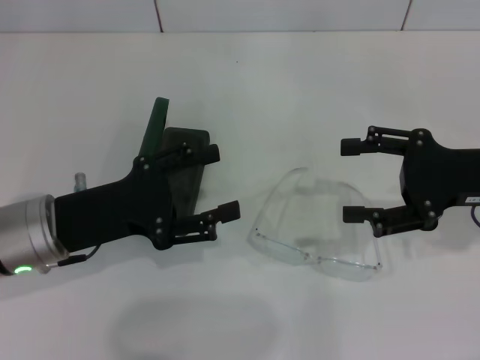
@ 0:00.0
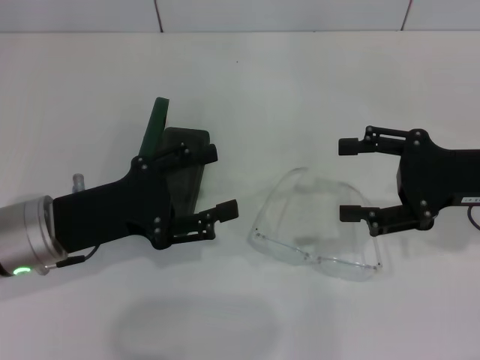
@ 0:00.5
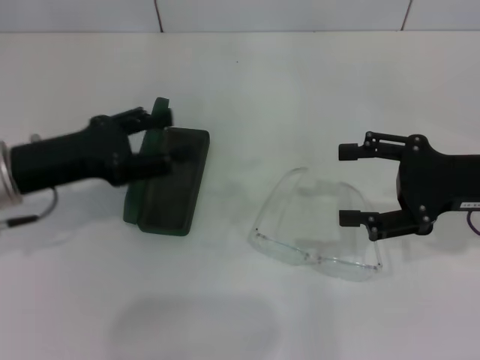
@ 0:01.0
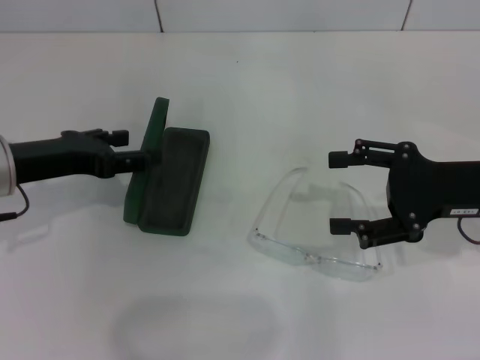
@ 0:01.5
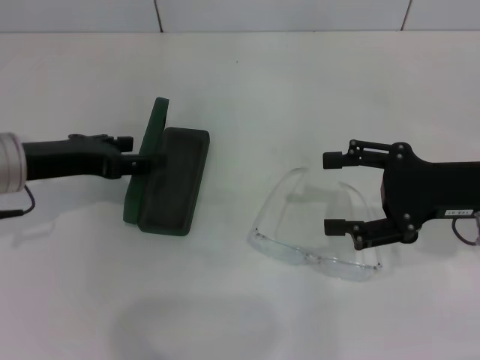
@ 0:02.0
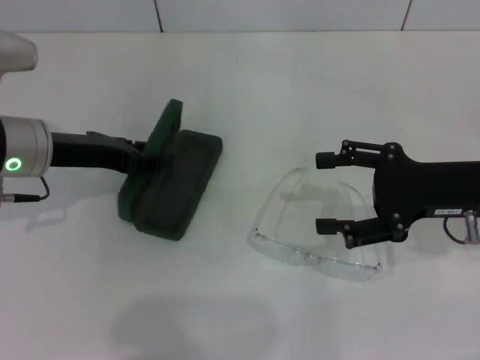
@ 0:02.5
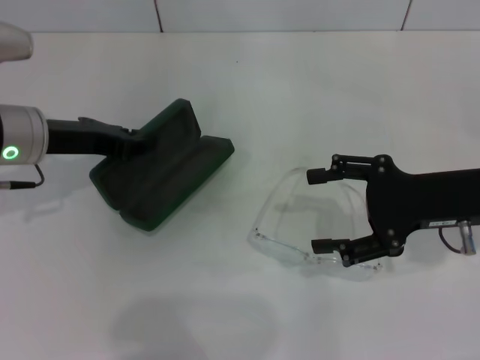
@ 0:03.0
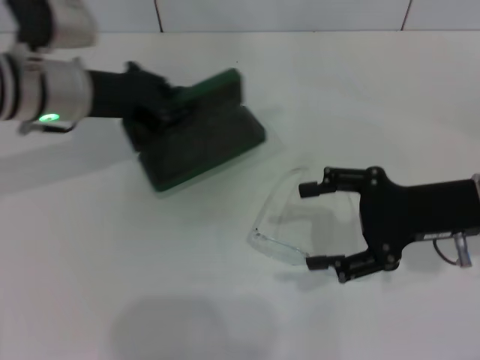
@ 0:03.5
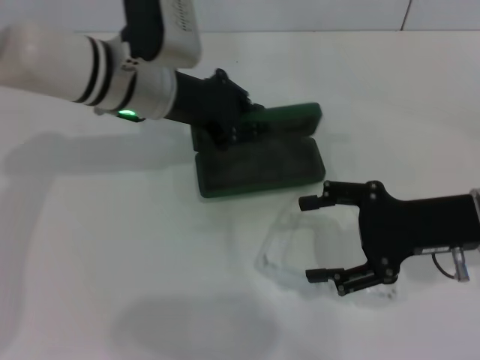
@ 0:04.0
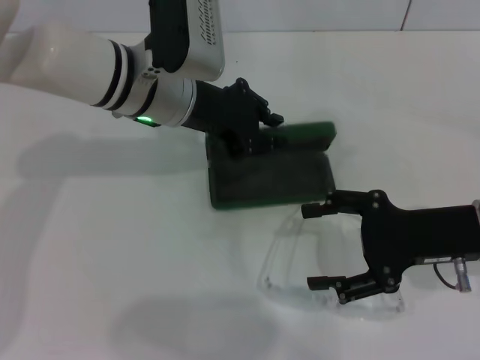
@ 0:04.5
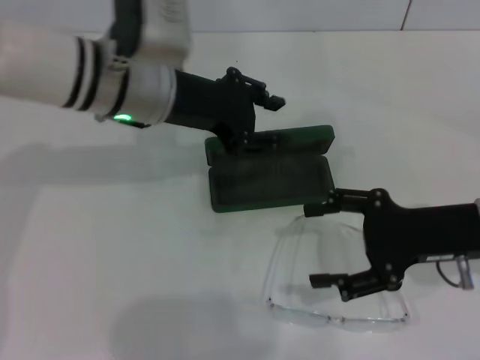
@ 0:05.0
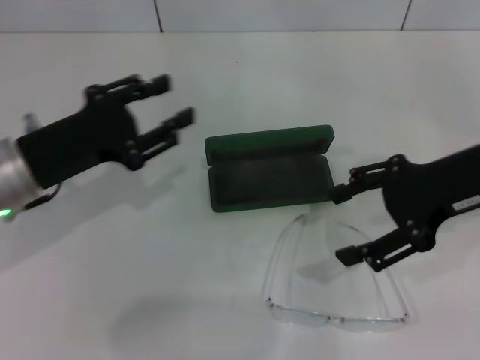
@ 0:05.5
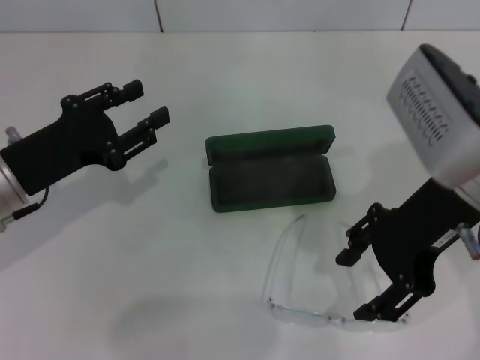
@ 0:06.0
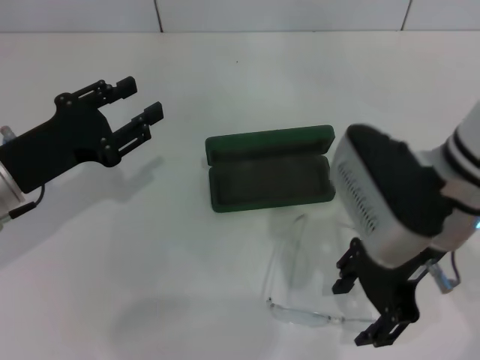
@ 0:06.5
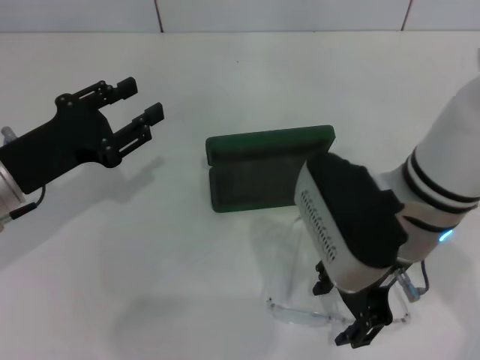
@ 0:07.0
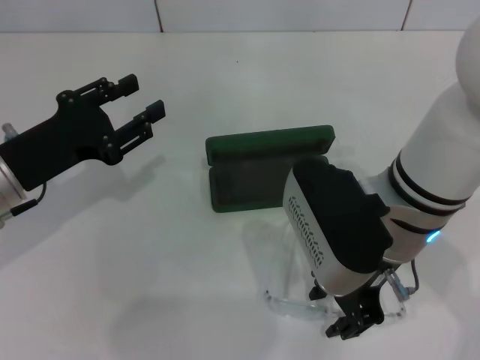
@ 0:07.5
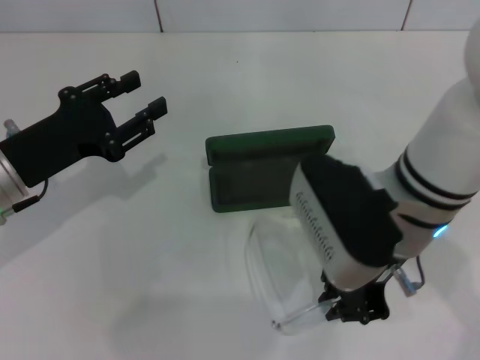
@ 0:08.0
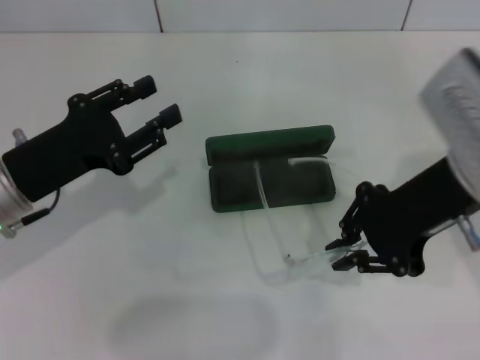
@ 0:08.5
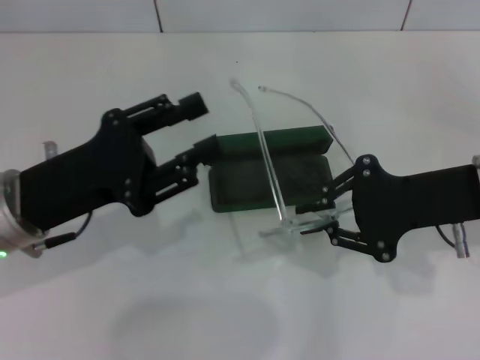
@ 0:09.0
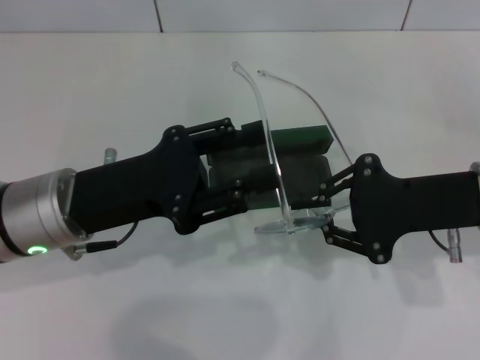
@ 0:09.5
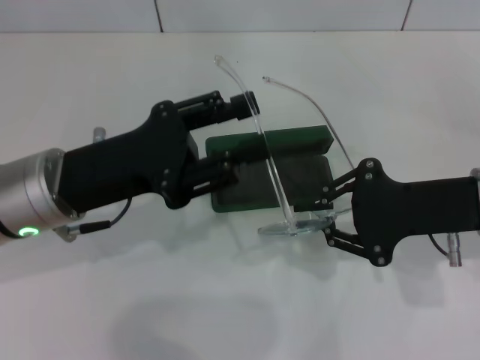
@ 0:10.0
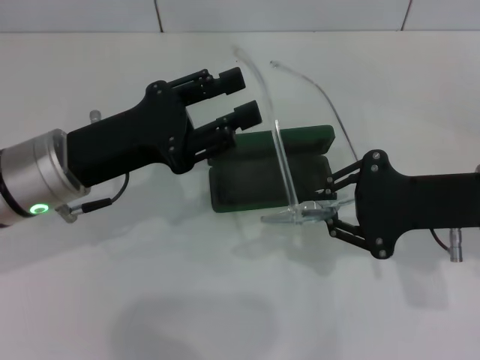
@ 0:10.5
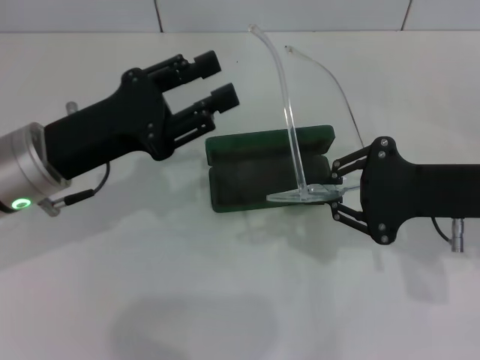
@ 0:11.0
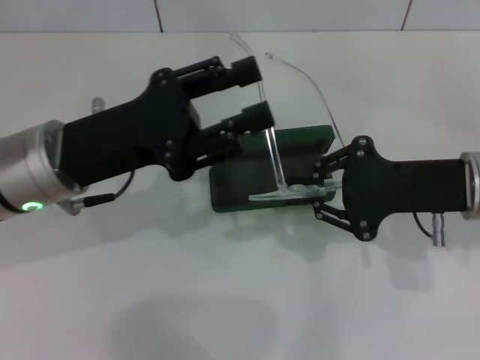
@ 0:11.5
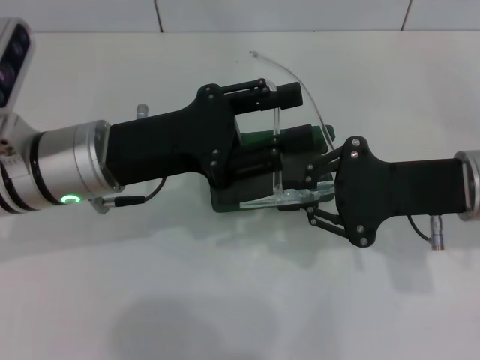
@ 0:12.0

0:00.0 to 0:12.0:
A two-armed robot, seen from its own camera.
Step, 0:00.0 to 0:02.0: Grab the glasses case with your left hand.
Step, 0:02.5 to 0:04.5: Place the glasses case in the center of the table with your left hand.
Step, 0:05.0 to 0:07.5: Grab the eyeglass frame with your right hand.
0:00.0 to 0:02.0: The left gripper shifts approximately 5 cm forward.
0:02.0 to 0:04.0: The left gripper shifts approximately 15 cm to the right and forward, and closes its fingers.
0:04.0 to 0:06.0: The right gripper moves upward and to the left, some 10 cm. The left gripper heads to the left and backward, covering roughly 20 cm, and opens up.
0:06.0 to 0:08.0: The right gripper is displaced to the left by approximately 5 cm, and closes.
0:08.0 to 0:10.0: The right gripper shifts approximately 10 cm to the right. Meanwhile the left gripper travels to the right by approximately 5 cm.

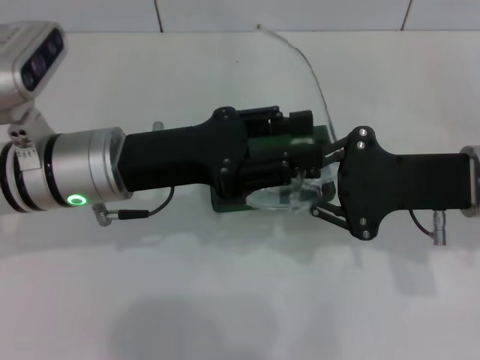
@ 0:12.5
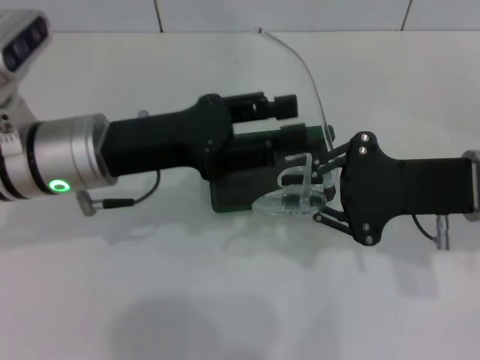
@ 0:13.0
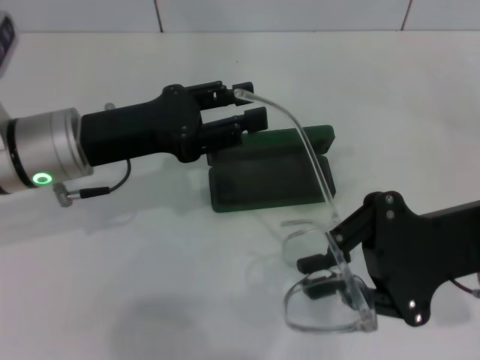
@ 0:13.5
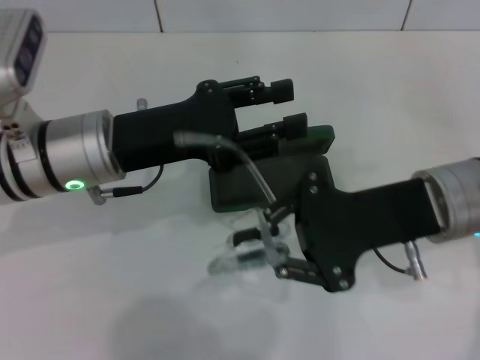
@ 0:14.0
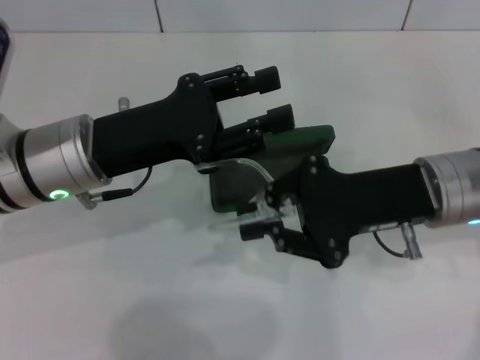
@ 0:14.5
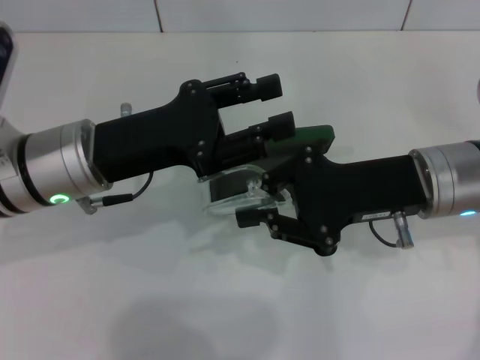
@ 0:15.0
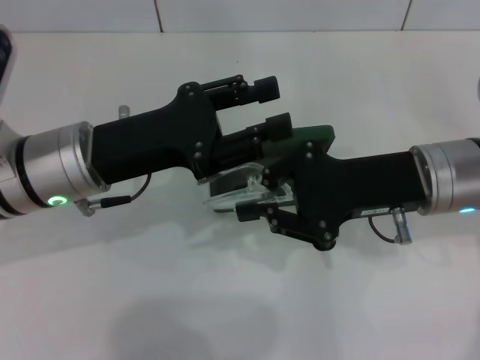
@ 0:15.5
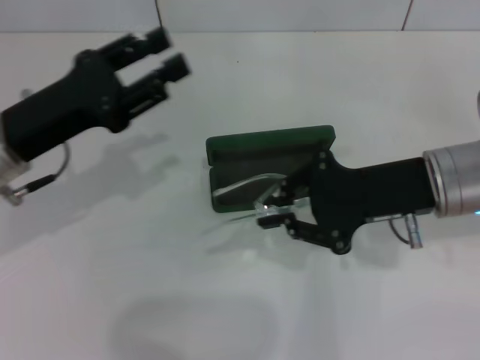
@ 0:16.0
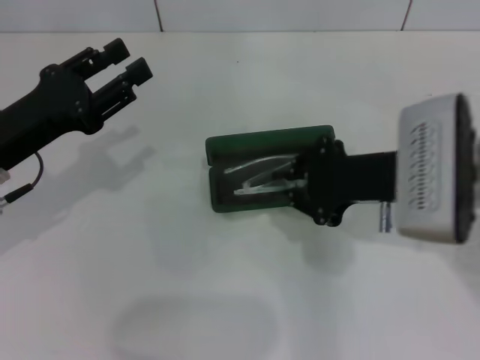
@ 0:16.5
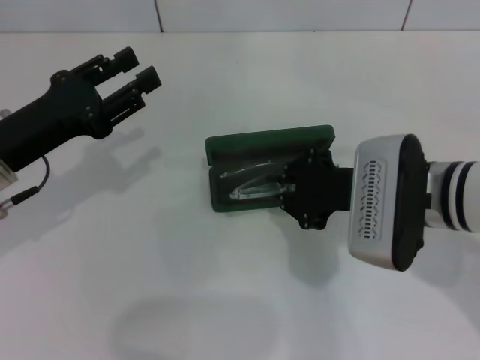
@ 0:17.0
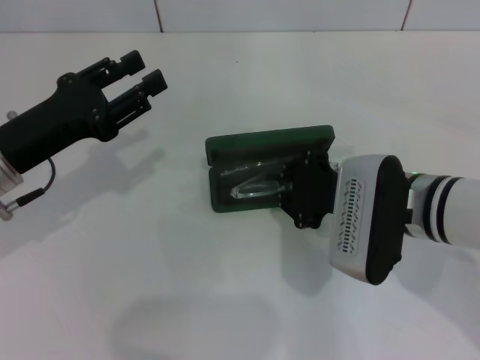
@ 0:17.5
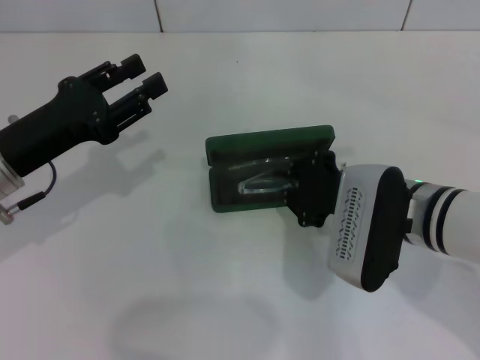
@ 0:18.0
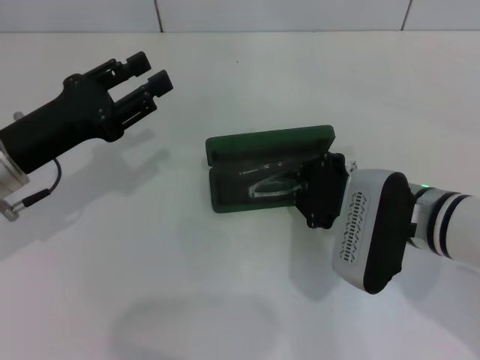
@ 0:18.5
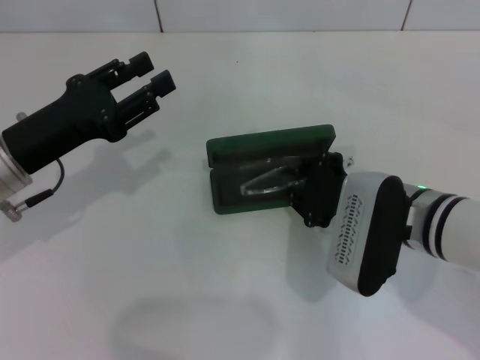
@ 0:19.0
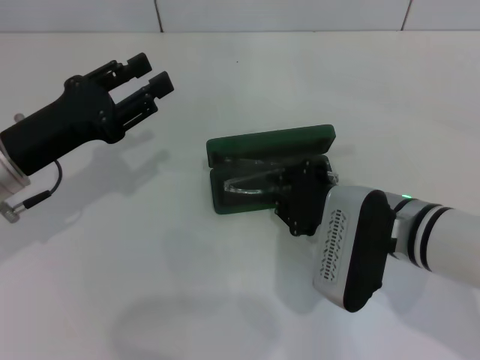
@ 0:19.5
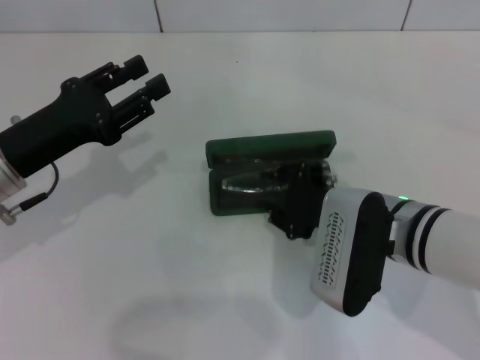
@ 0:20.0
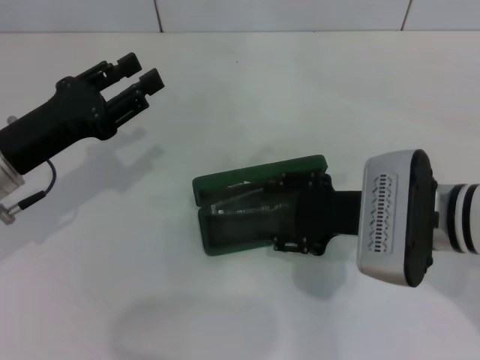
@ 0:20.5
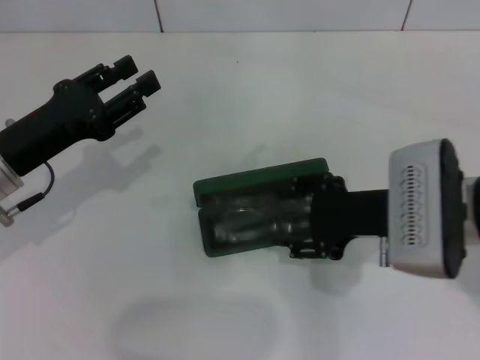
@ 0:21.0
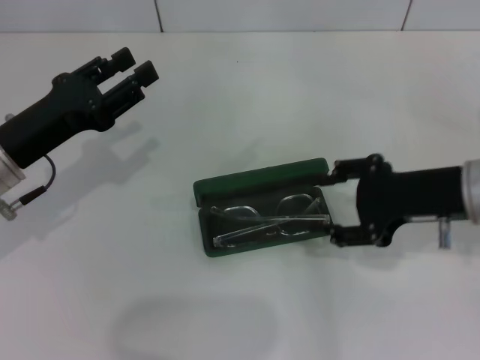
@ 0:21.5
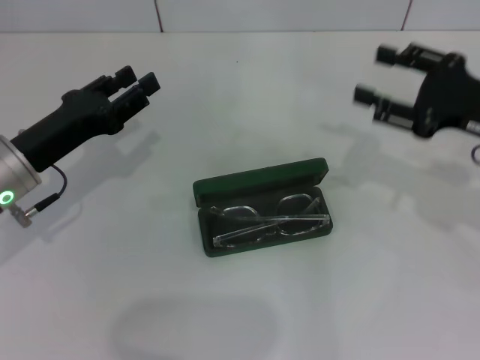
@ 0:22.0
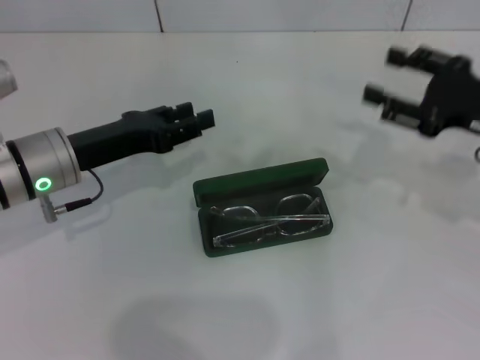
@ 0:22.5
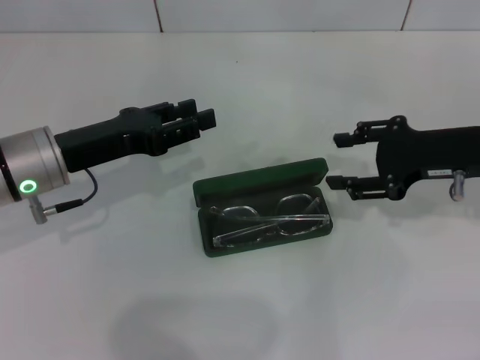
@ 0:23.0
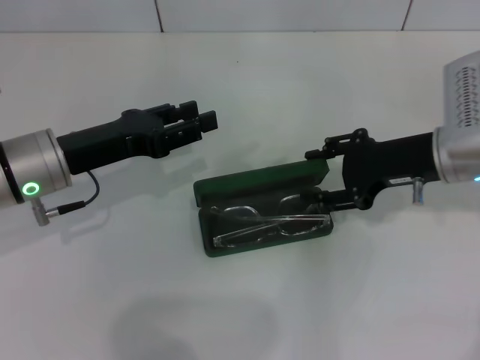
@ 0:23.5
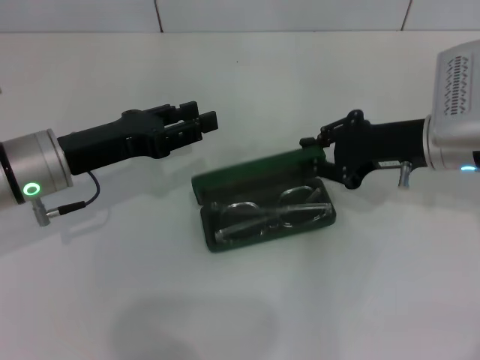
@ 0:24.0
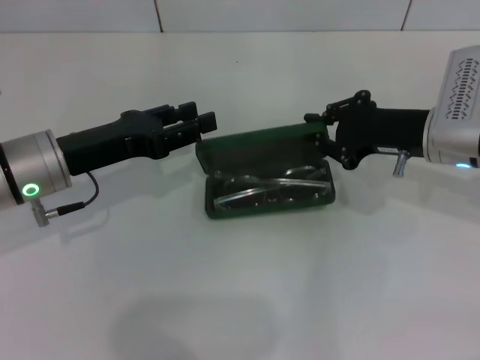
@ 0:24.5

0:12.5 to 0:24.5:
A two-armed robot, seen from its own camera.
Step, 0:12.5 to 0:15.5: Fold the frame with your left hand.
Step, 0:16.0 to 0:19.5: Put the glasses into the case with your right hand.
0:14.5 to 0:16.5: The left gripper heads to the left, covering about 10 cm.
0:16.5 to 0:18.5: The right gripper goes about 5 cm downward.
0:18.5 to 0:20.5: The right gripper opens.
0:20.5 to 0:22.5: The right gripper goes roughly 15 cm to the right, while the left gripper ends up some 5 cm from where it was.
0:22.5 to 0:24.5: The right gripper shifts about 10 cm to the left, and closes.

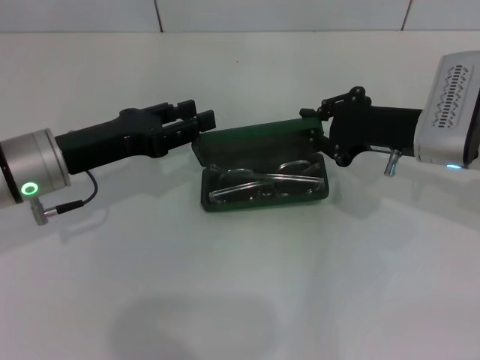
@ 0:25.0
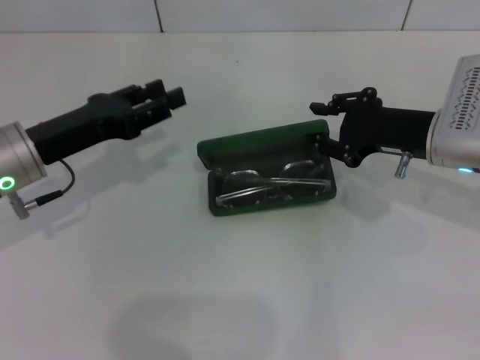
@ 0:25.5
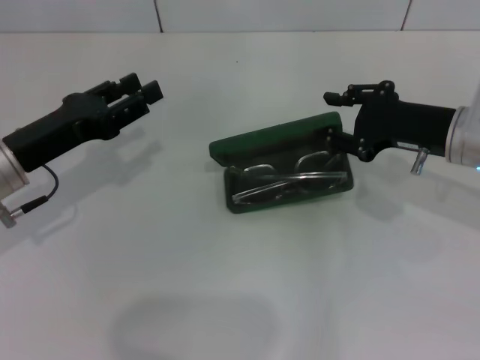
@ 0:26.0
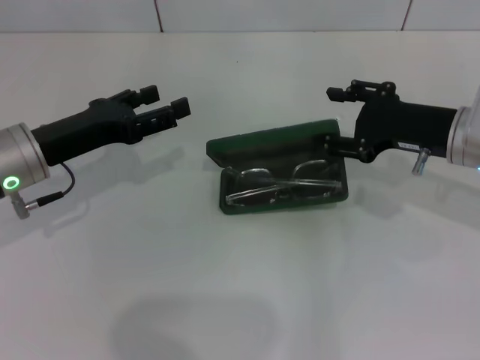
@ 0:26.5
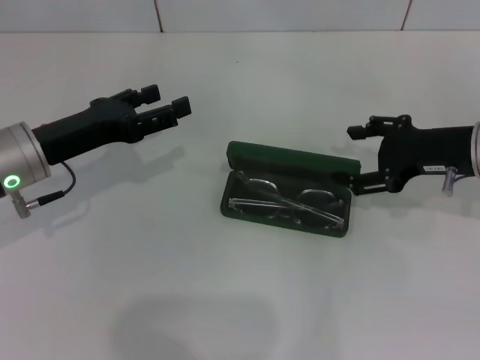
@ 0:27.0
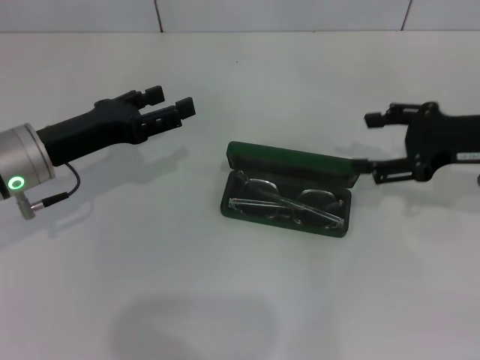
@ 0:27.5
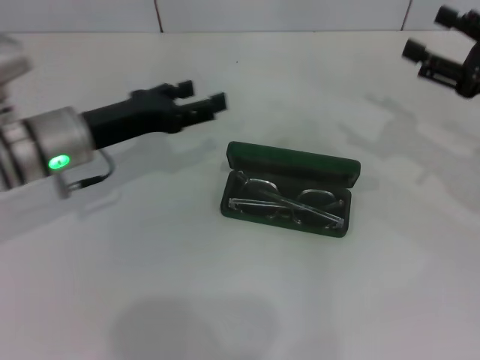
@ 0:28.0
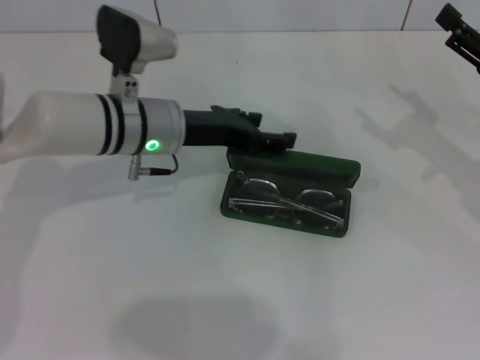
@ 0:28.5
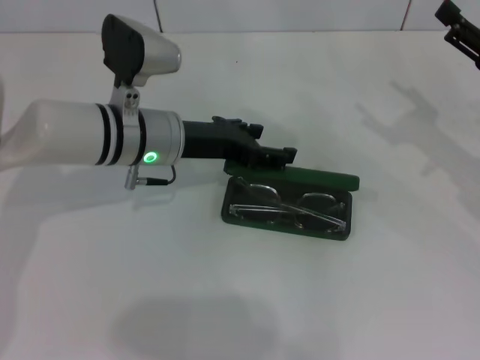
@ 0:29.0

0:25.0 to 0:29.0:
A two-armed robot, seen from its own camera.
0:25.0 to 0:27.0: The right gripper changes place by about 5 cm, and opens its fingers; the left gripper opens.
0:27.0 to 0:29.0: The right gripper shifts about 5 cm to the right. Meanwhile the left gripper travels to the right and forward by approximately 15 cm.
